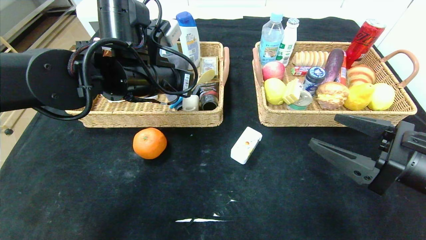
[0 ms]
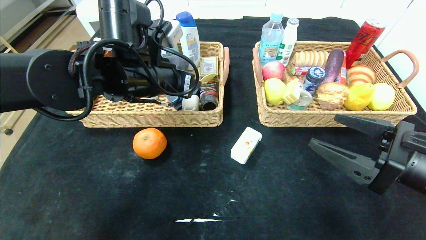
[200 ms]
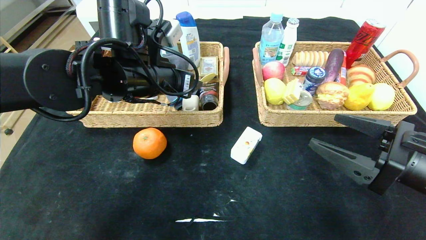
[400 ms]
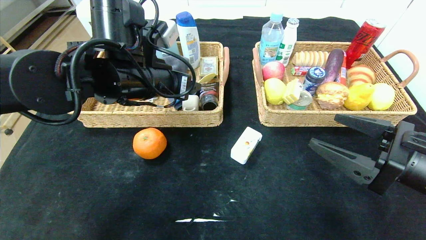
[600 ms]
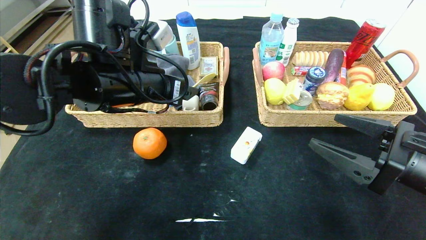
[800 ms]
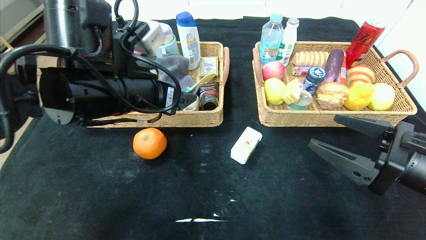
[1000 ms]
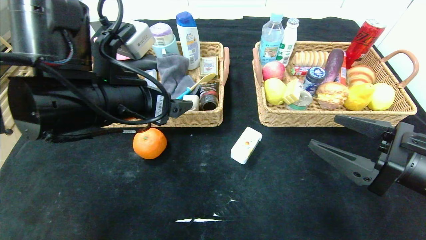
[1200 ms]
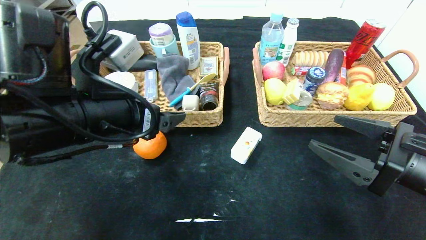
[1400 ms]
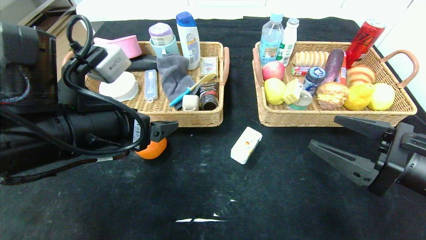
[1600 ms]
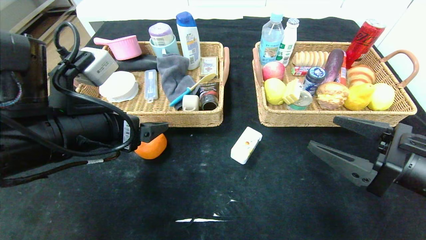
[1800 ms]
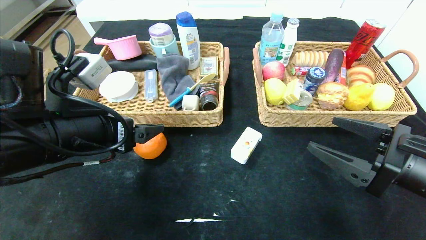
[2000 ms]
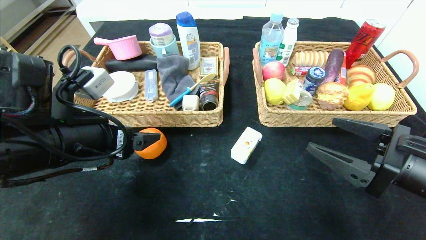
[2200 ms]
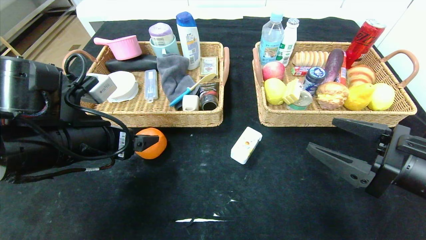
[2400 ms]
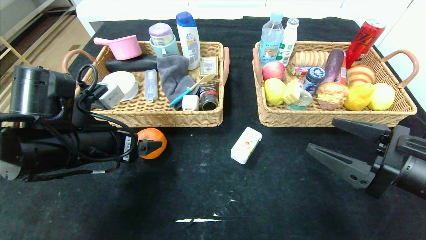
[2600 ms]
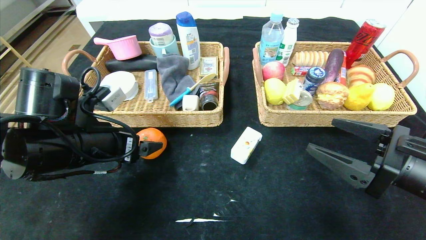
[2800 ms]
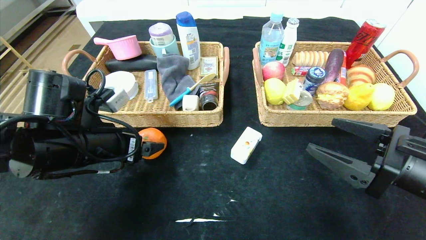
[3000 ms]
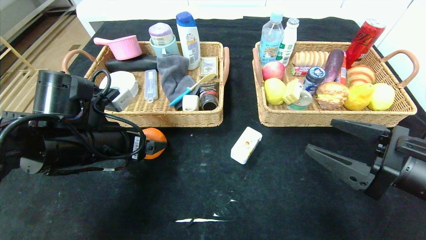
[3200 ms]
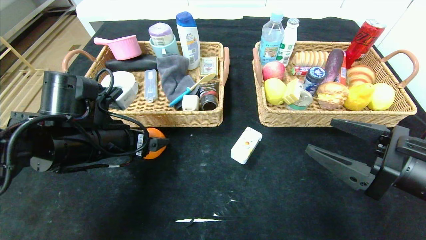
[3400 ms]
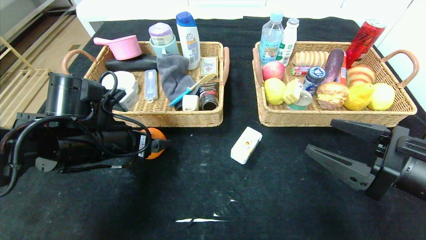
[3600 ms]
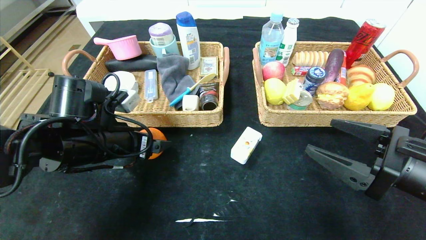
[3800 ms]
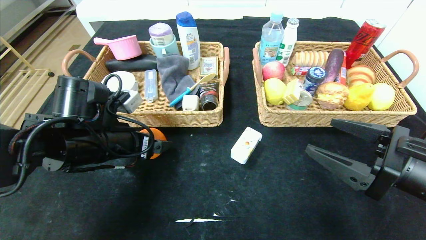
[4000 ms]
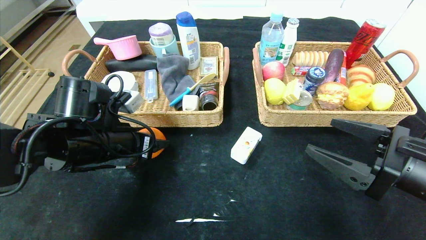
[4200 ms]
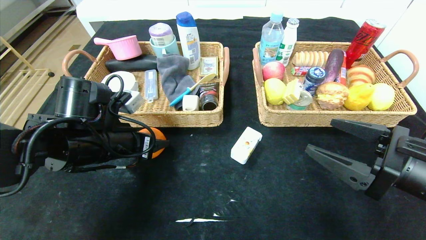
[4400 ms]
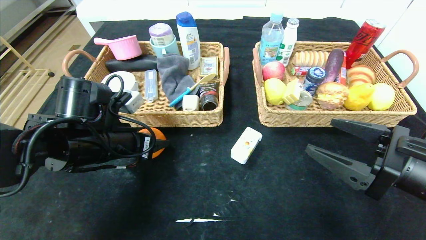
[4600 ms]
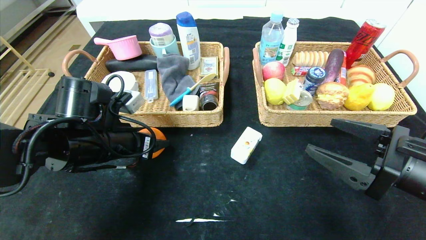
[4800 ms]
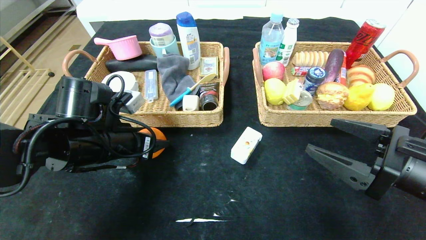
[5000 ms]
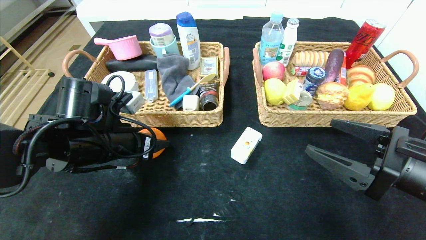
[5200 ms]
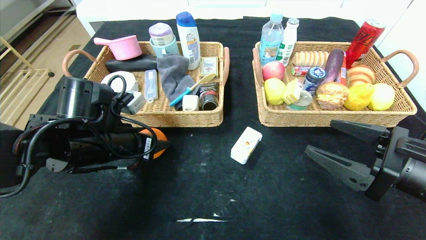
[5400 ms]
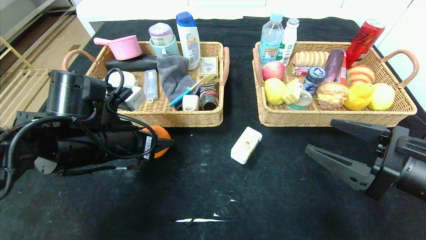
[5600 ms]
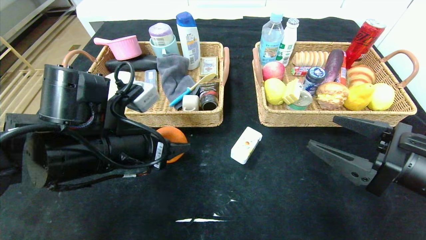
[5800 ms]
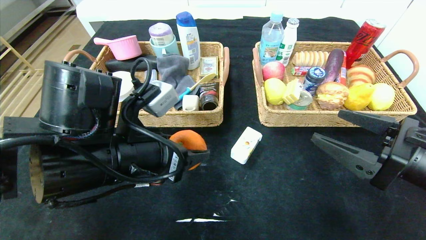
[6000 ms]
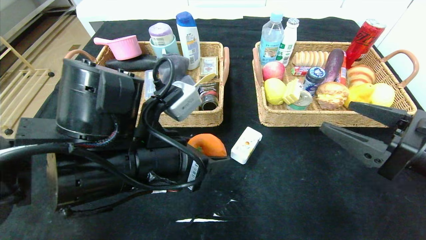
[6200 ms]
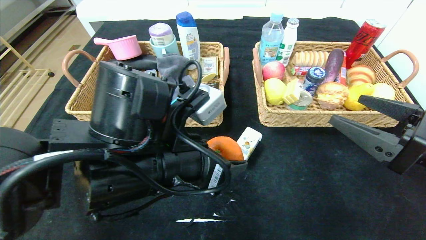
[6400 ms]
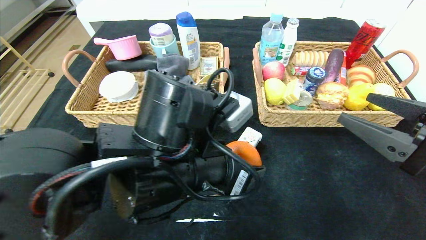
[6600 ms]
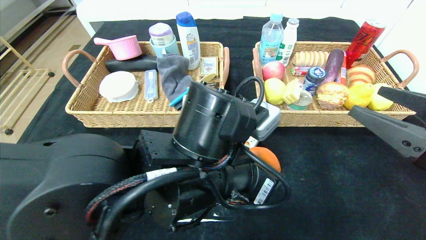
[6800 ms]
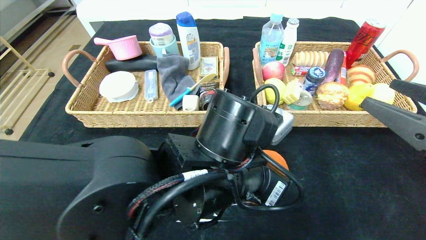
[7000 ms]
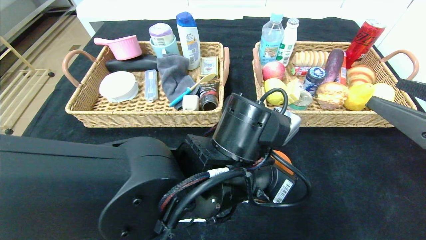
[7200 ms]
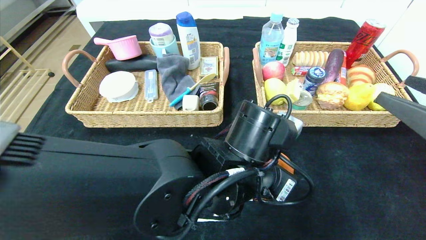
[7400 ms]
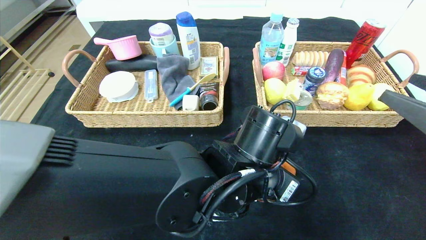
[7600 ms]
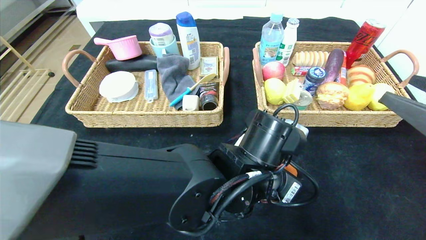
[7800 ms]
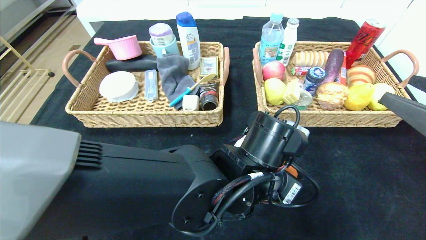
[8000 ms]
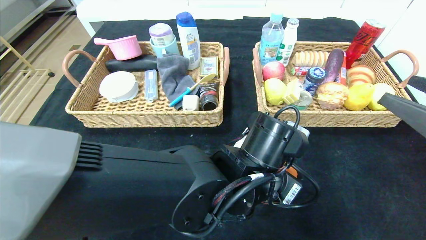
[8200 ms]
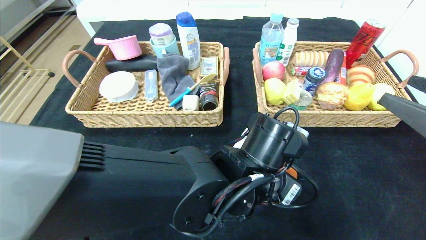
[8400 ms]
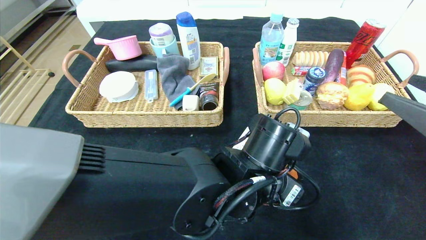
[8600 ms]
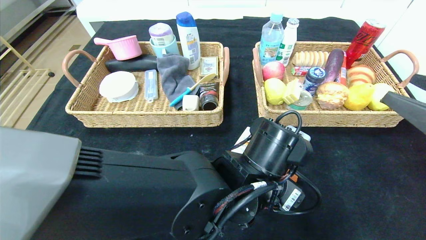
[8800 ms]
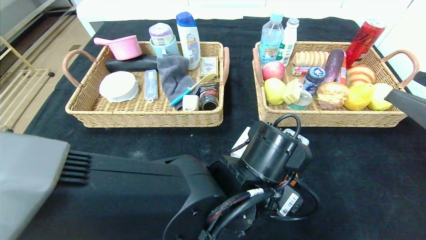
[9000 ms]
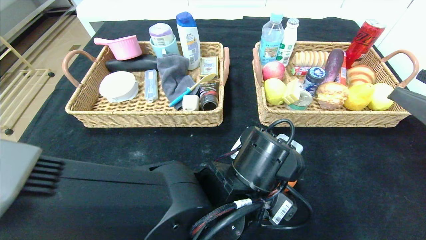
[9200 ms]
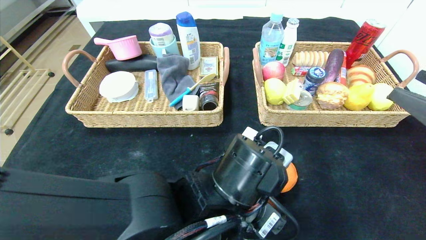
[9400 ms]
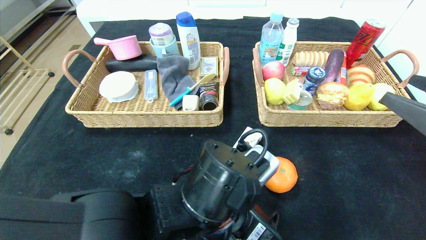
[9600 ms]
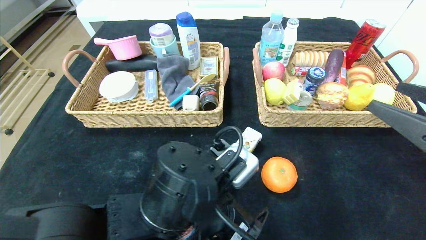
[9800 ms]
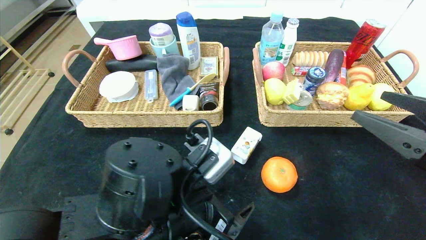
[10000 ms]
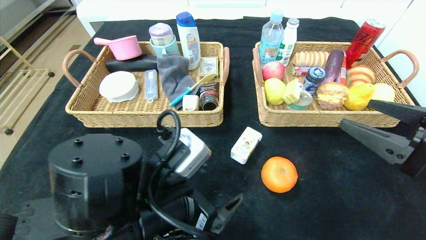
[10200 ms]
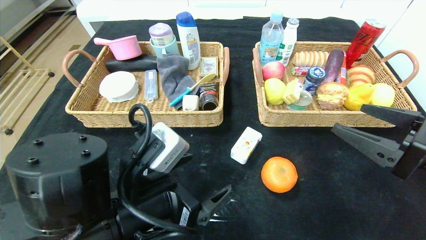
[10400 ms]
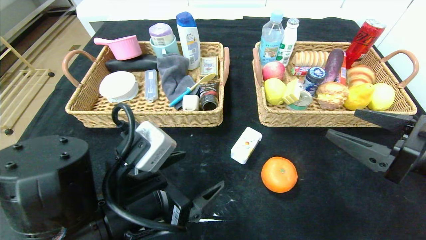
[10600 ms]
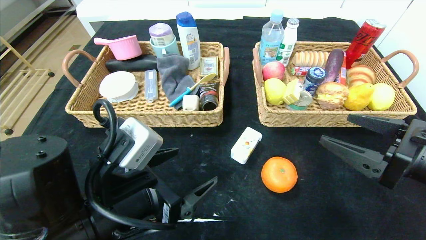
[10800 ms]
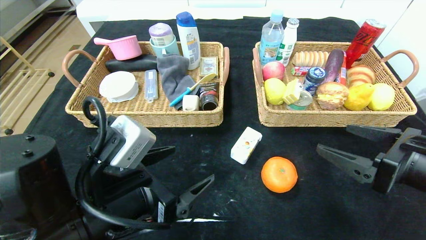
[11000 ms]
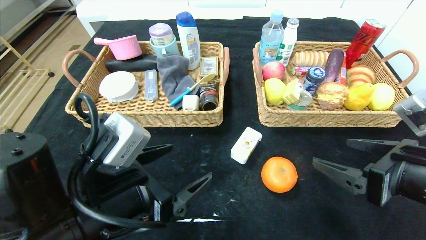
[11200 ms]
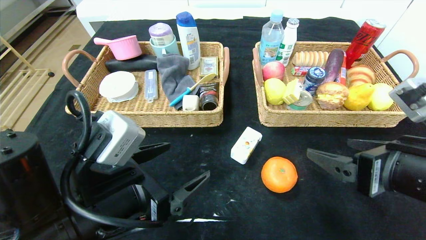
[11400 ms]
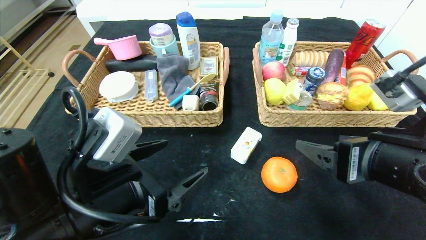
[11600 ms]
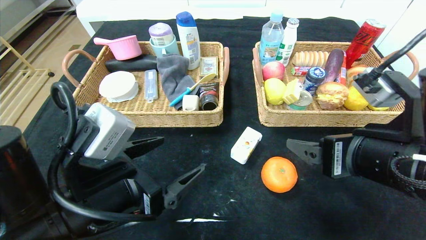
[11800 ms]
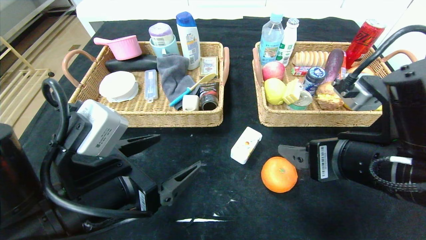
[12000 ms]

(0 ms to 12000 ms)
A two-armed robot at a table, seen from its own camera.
Step, 1800 ms - 9600 ms: Place the orange in the center of the table.
0 ms - 1600 ms: The left gripper is displaced backward by approximately 10 cm, and opens up.
1600 ms - 3000 ms: The left gripper moves downward, some 5 cm.
3000 ms - 4400 ms: The grippers stay close to where they were, moving slightly.
4400 ms - 6000 ms: The left gripper shifts roughly 10 cm to the right and backward.
6000 ms - 7600 ms: The right gripper moves approximately 5 cm, while the left gripper travels to the right by about 15 cm.
7600 ms - 9000 ms: The grippers make only small movements.
9000 ms - 10400 ms: The left gripper goes about 15 cm to the left. The right gripper ends up some 5 cm from where it was.
10400 ms - 12000 ms: The right gripper shifts approximately 10 cm to the left.

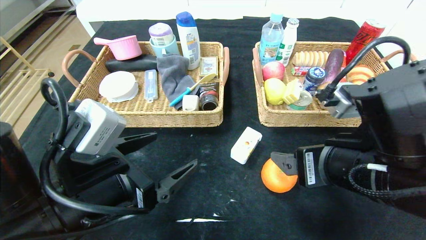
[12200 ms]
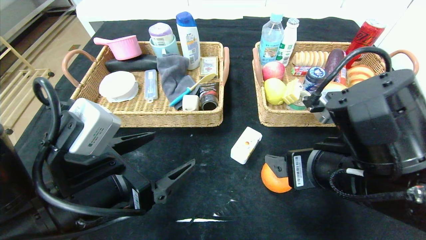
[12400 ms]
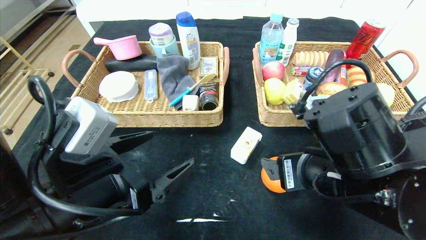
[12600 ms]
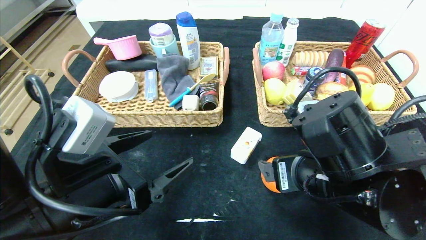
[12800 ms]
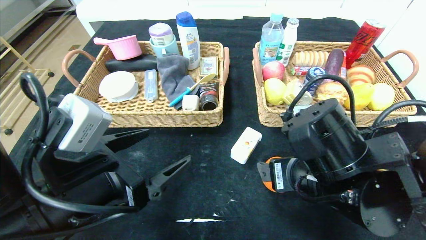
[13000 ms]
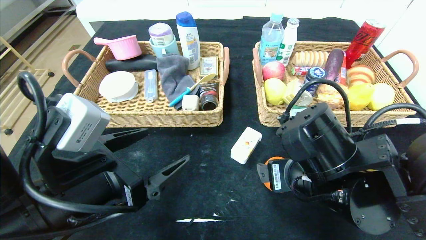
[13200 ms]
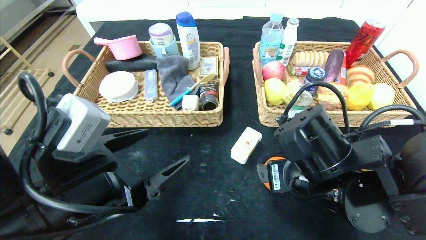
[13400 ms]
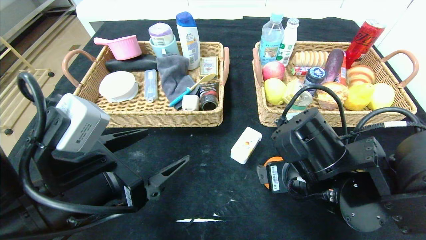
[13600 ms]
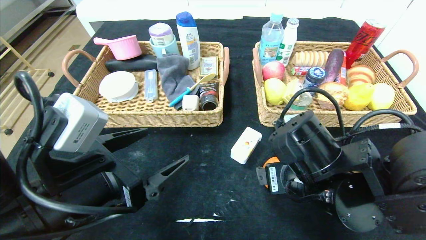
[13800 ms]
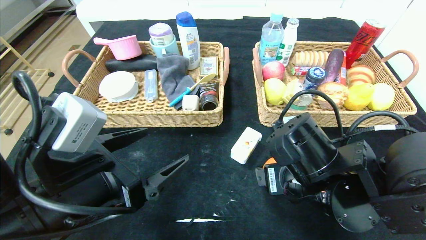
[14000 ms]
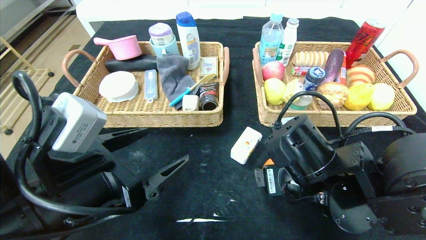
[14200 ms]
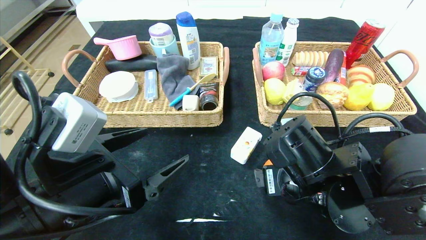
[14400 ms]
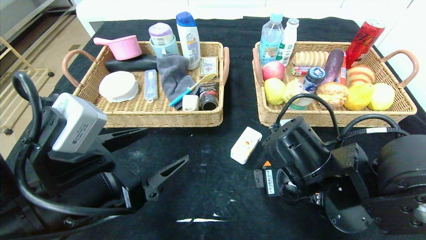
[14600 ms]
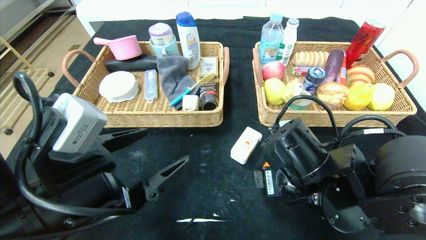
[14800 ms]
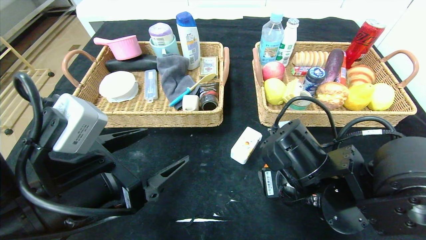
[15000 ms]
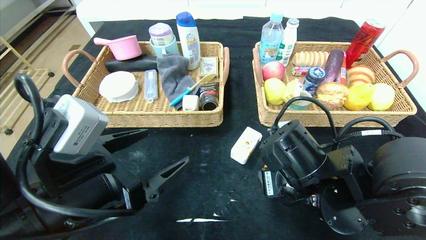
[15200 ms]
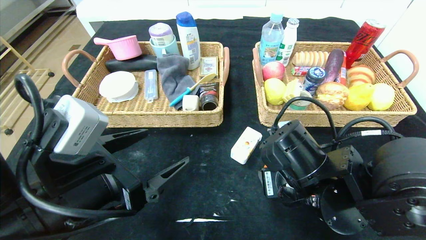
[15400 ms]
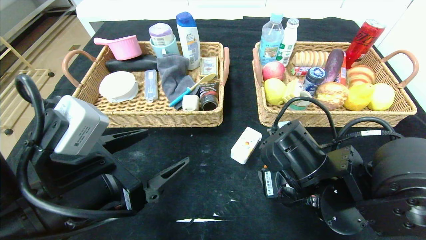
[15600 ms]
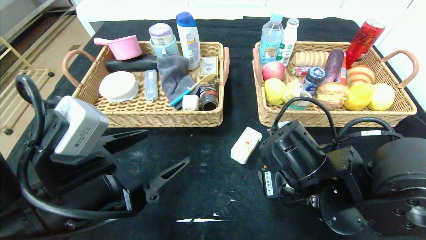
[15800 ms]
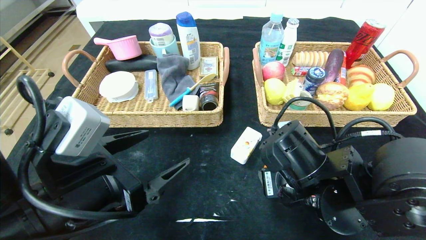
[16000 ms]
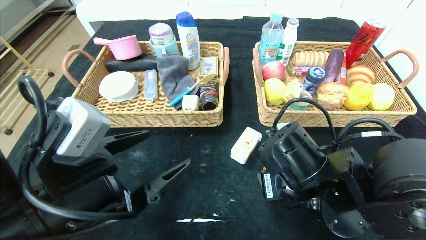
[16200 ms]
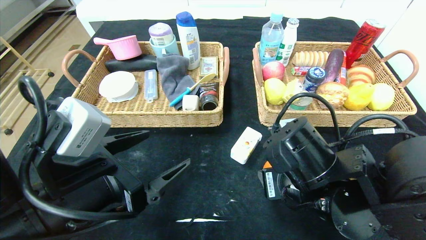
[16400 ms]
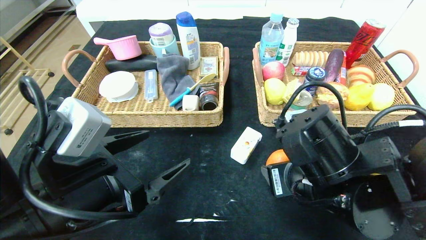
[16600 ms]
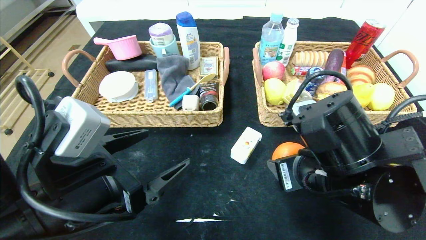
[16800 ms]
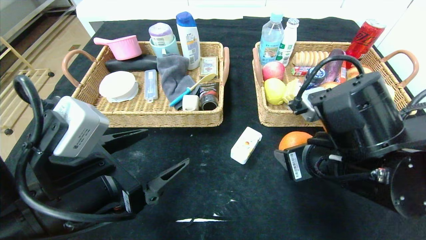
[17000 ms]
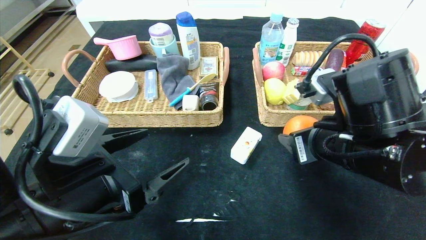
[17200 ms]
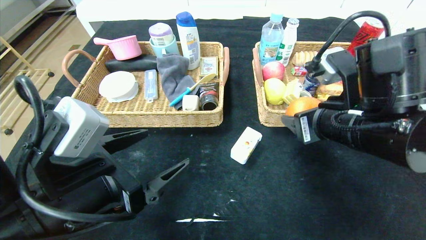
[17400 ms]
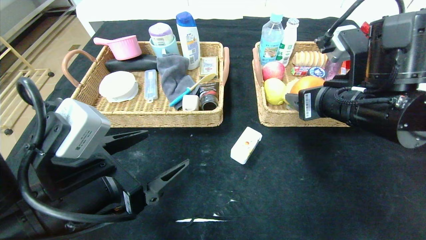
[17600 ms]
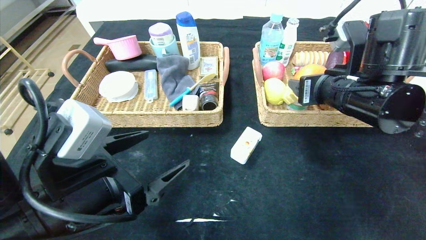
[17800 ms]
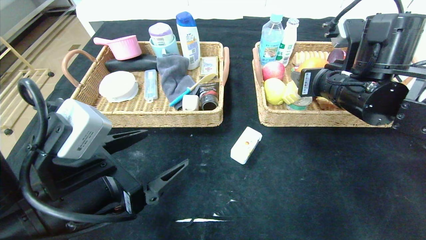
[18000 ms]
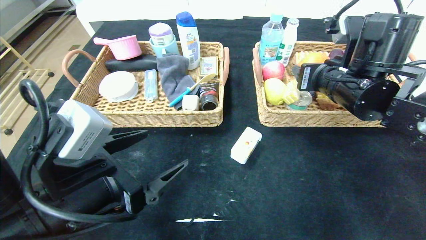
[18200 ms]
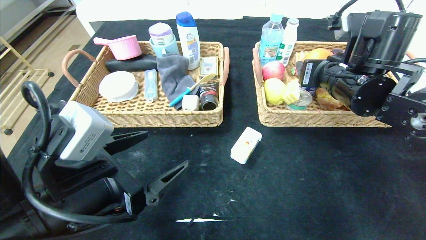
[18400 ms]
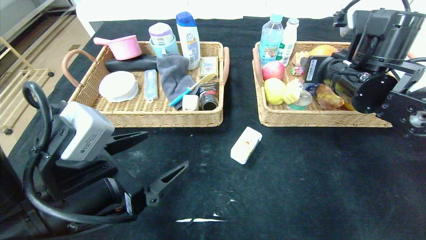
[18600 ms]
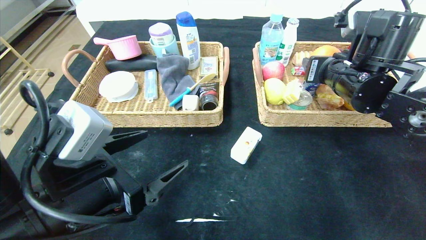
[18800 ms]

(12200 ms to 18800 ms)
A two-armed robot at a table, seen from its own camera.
12200 ms - 13800 ms: The right gripper moves downward, approximately 5 cm.
13800 ms - 15400 ms: The grippers move only a little.
15400 ms - 17200 ms: The right gripper moves upward, approximately 5 cm.
17200 ms - 18800 ms: The right gripper is displaced forward by approximately 10 cm.
